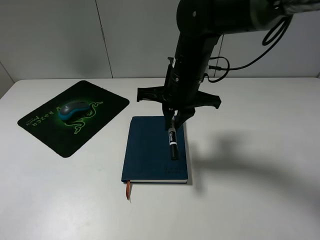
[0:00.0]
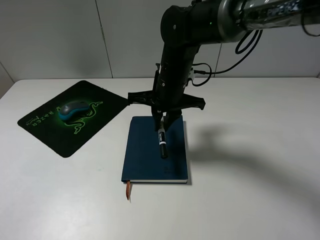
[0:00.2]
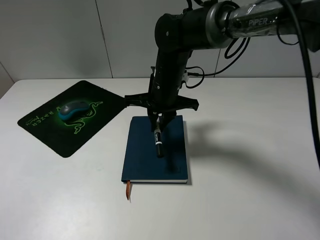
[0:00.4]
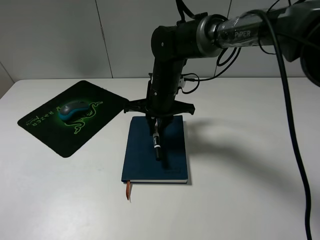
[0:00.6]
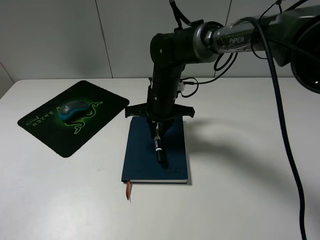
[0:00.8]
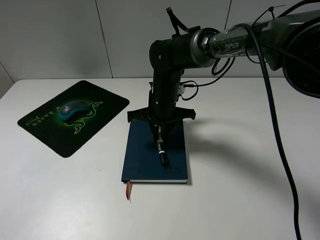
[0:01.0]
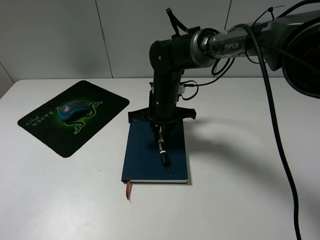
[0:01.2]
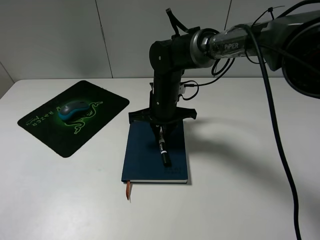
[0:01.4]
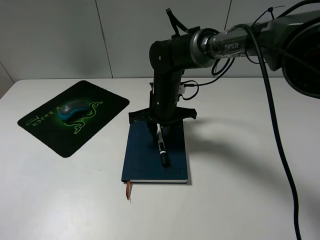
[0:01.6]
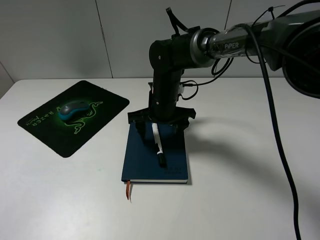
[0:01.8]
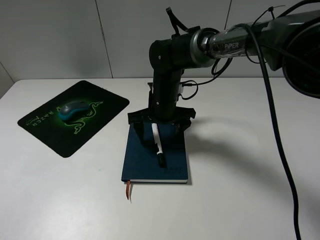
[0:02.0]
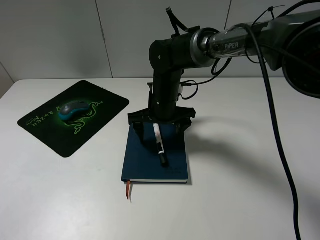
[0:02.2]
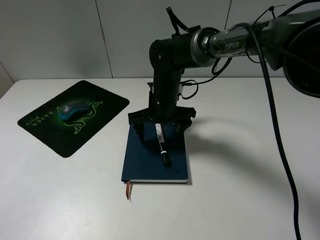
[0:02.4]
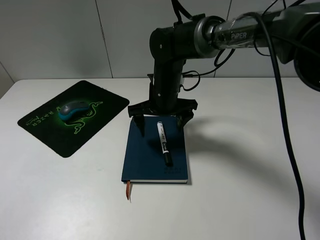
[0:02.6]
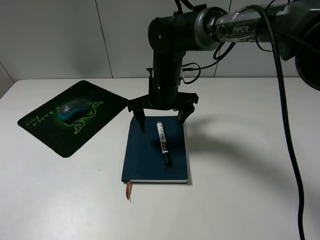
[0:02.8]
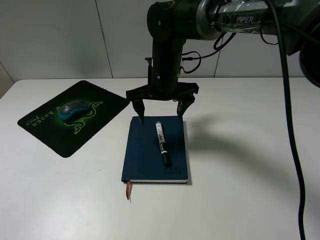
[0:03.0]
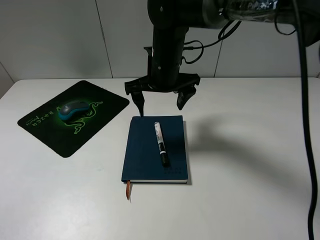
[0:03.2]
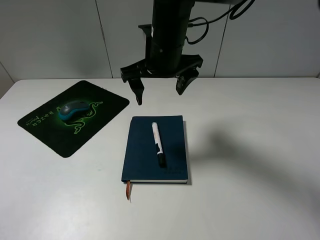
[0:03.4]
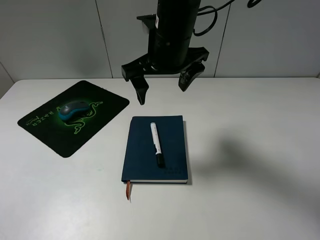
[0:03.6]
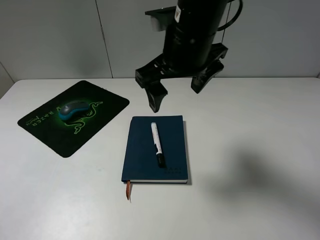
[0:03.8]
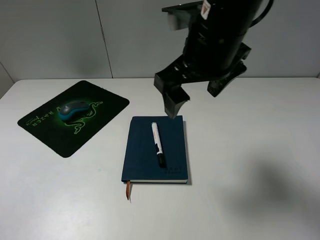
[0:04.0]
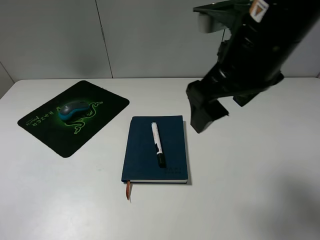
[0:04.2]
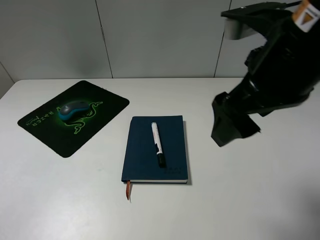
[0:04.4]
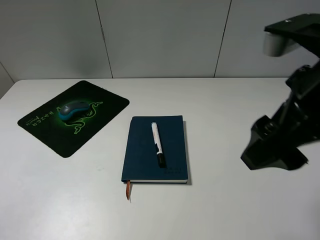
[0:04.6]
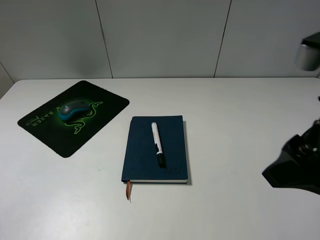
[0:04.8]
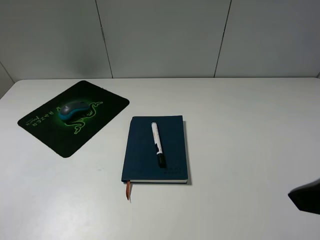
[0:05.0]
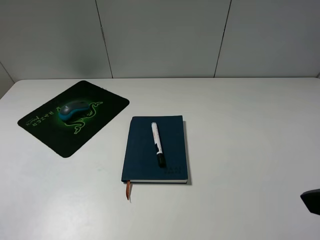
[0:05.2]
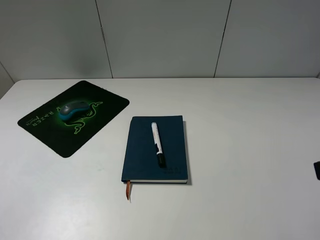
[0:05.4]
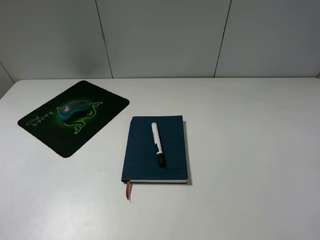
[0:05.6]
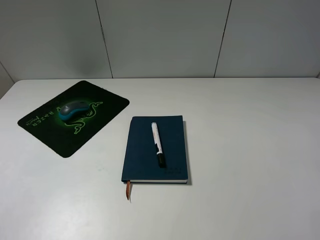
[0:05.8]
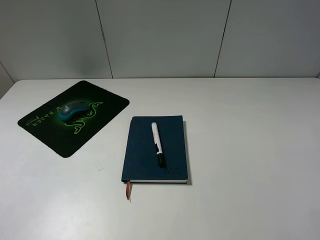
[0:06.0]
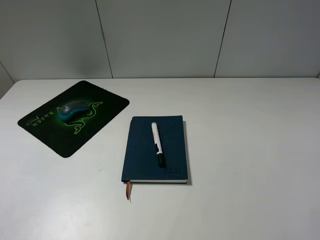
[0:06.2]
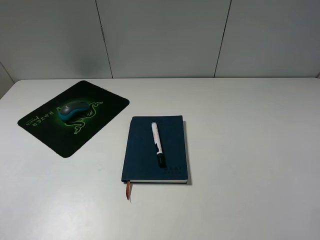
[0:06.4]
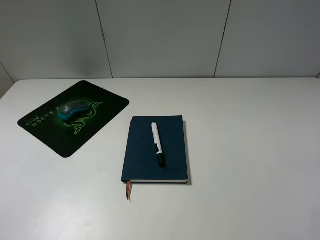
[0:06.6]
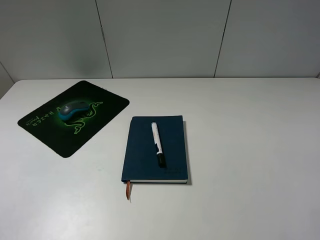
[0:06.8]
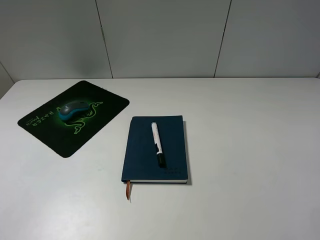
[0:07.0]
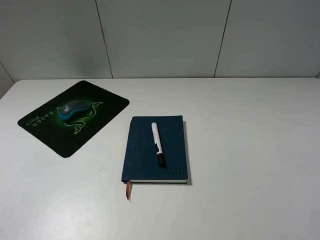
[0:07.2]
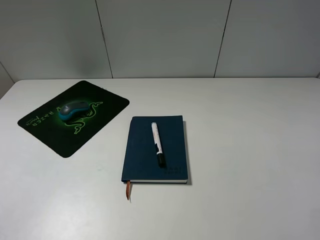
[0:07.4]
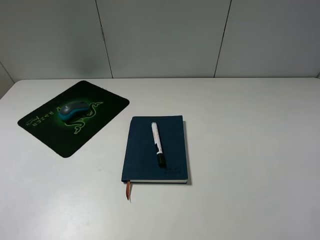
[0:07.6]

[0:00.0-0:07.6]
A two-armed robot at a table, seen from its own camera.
Step, 0:00.0 to 0:02.6: Place the marker on the notebook with the right gripper.
0:00.0 to 0:01.6: The right gripper goes some 10 cm downward, and opens.
0:01.6 to 0:03.0: The right gripper goes some 5 cm upward, and opens its fingers.
0:03.0 to 0:04.6: The right gripper is displaced backward, to the right and upward by roughly 30 cm.
0:04.6 to 0:06.0: The right gripper heads to the right and backward, covering some 15 cm.
